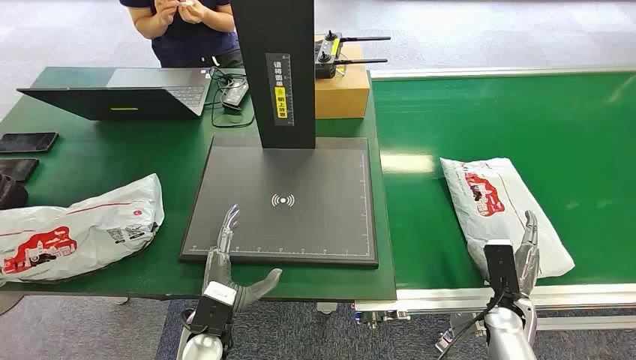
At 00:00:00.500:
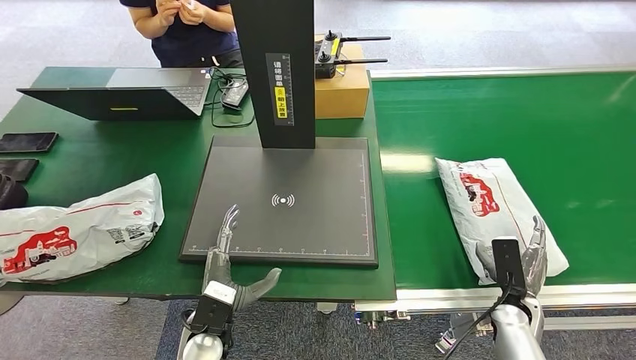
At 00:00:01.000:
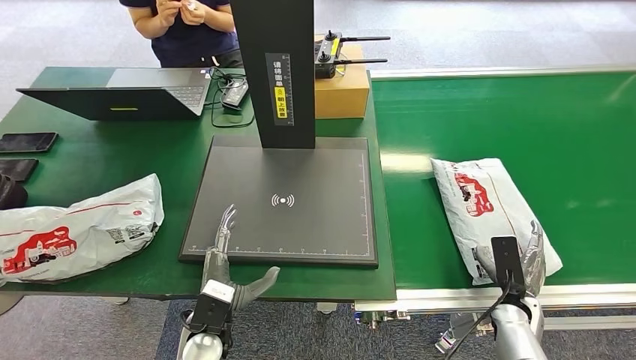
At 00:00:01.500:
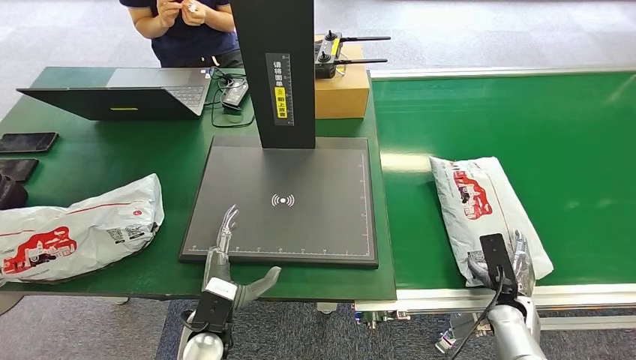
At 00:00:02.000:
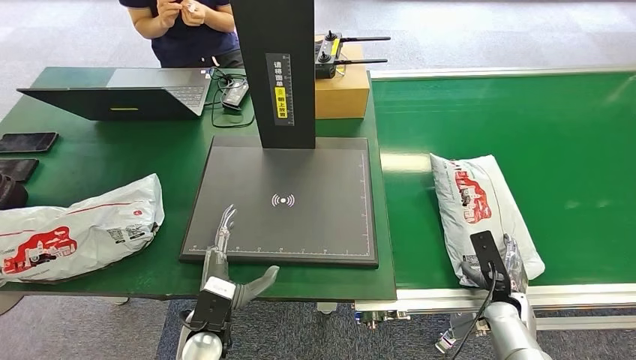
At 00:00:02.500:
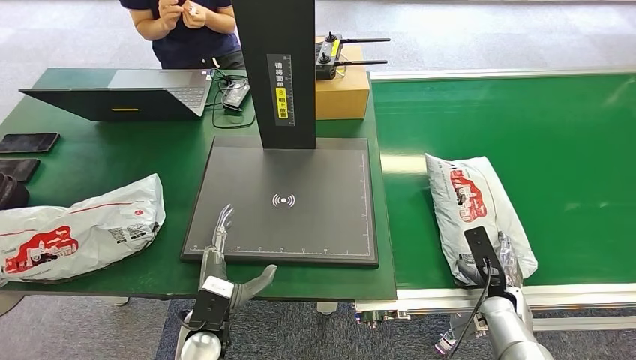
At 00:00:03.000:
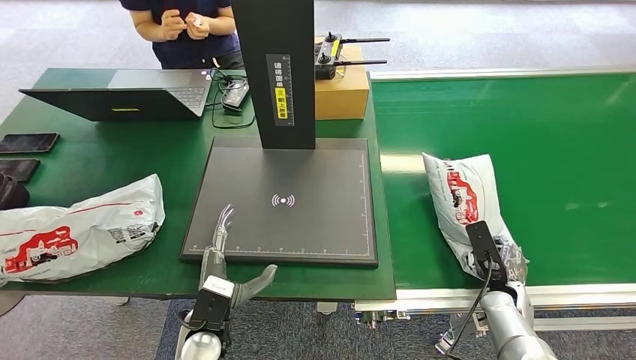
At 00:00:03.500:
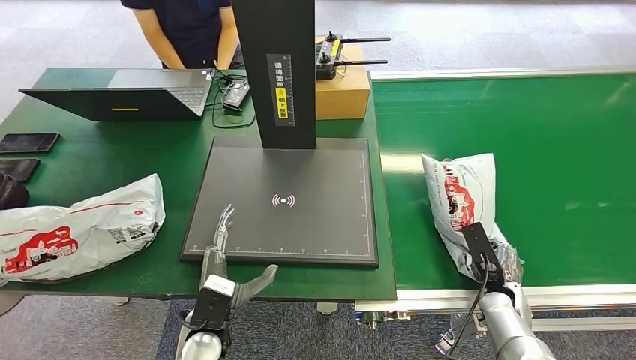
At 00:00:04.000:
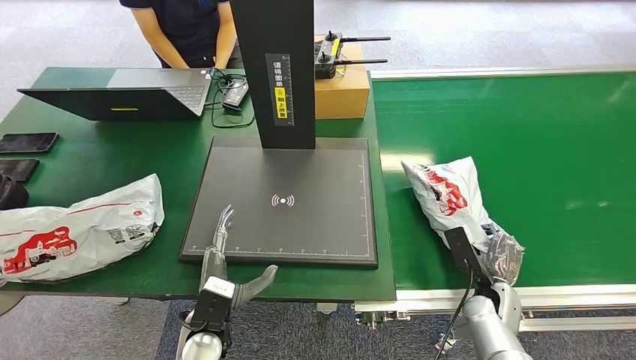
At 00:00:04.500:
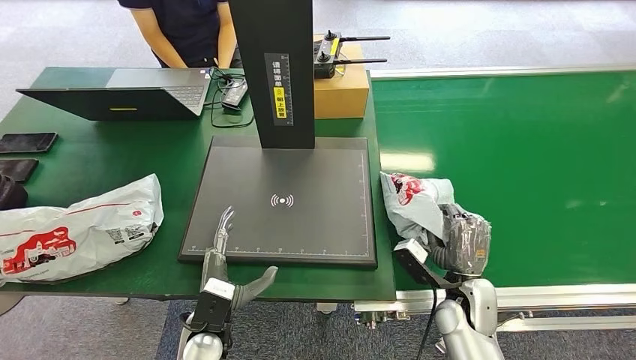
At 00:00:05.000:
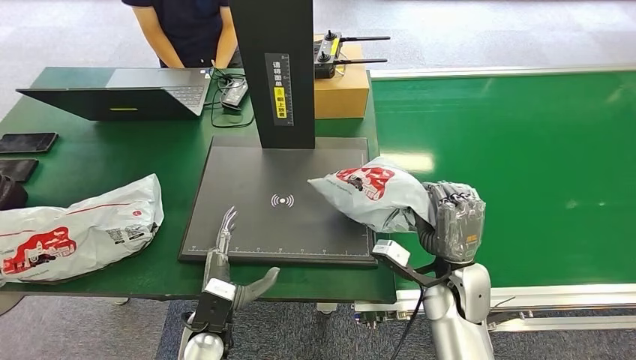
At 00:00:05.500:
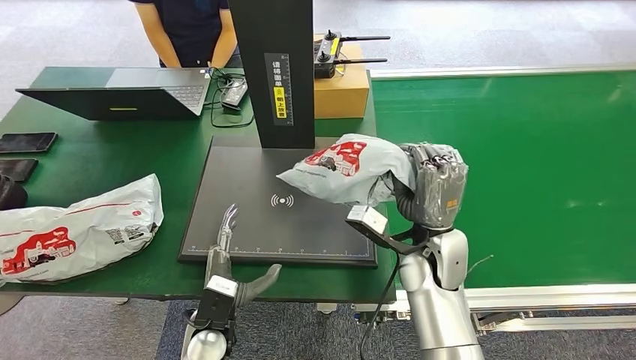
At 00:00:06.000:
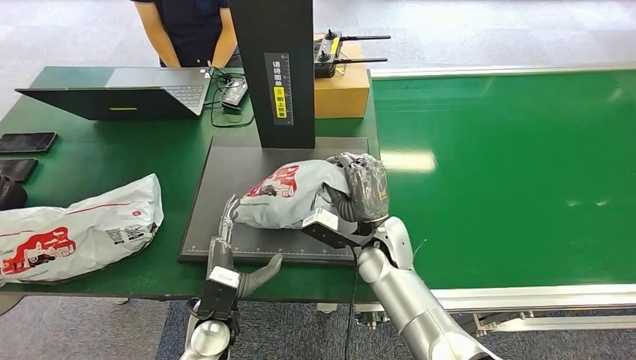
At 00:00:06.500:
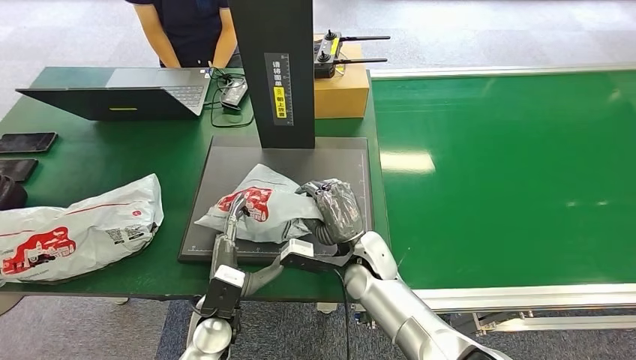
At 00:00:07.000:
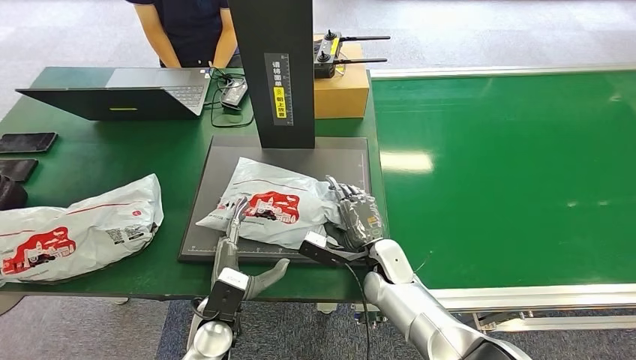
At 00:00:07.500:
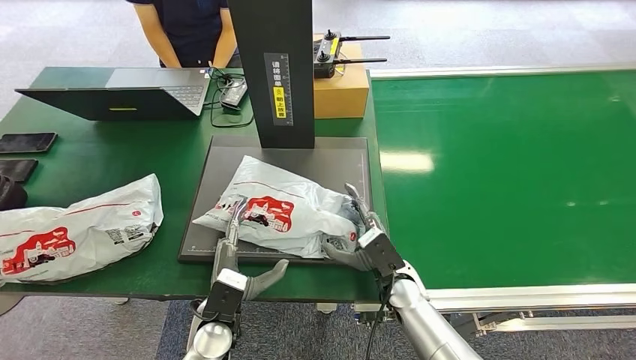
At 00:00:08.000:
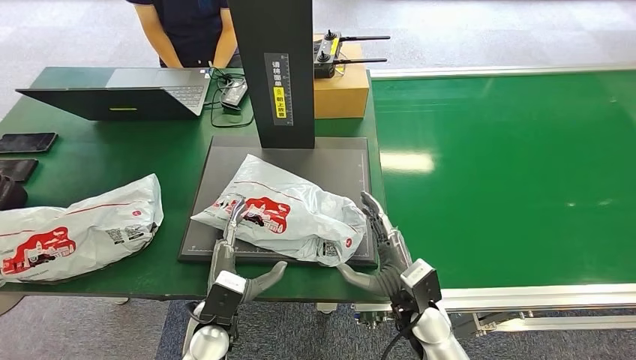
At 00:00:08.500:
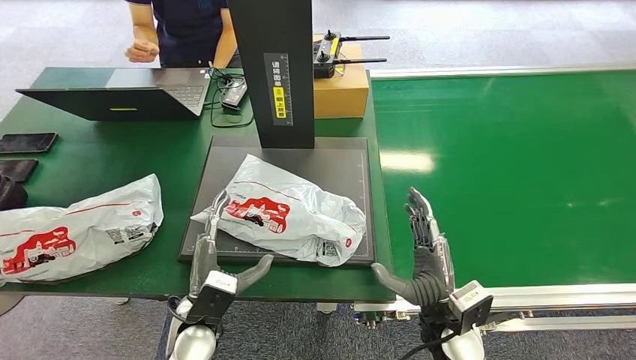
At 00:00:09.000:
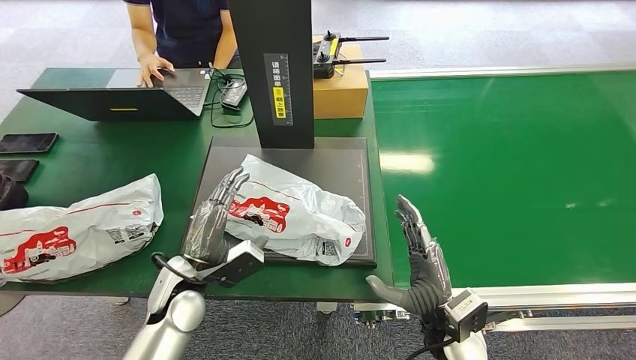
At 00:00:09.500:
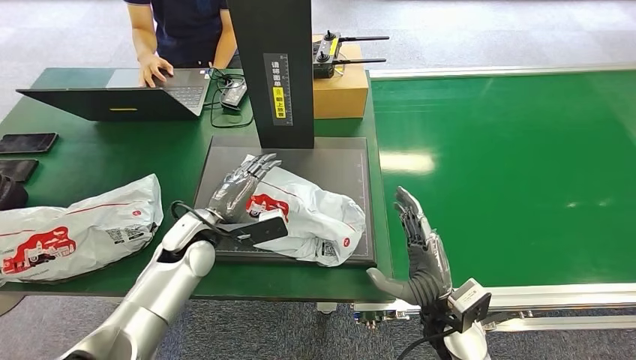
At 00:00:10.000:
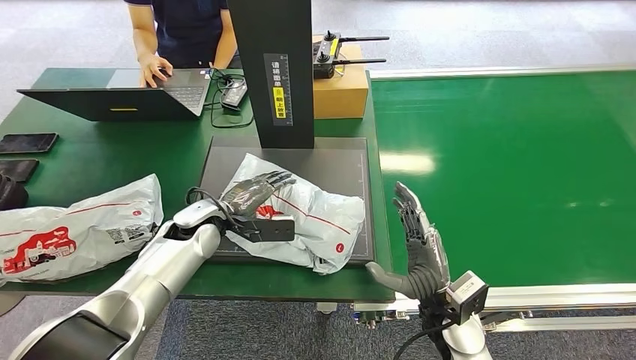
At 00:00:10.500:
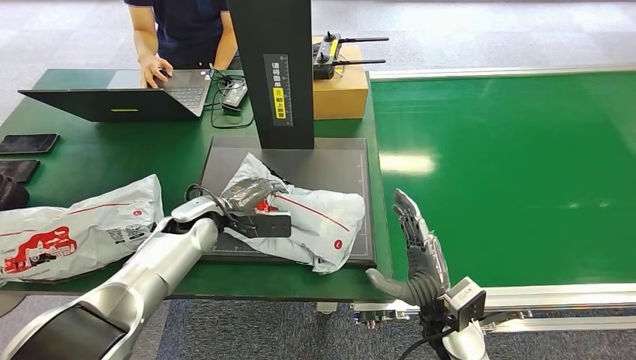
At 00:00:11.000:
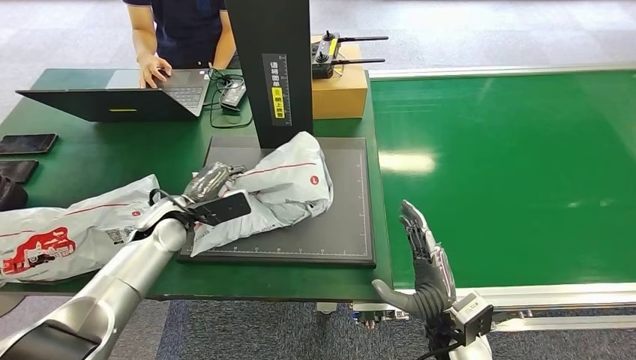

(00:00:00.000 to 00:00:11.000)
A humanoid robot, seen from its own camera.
Step, 00:00:00.000 - 00:00:04.500: Pick up the package from the conveyor belt.
Step, 00:00:05.000 - 00:00:08.000: Place the package onto the inbound machine.
00:00:02.000 - 00:00:03.500: There are only small adjustments of the hands.
00:00:05.500 - 00:00:07.500: The right hand is displaced downward by some 15 cm.
00:00:07.500 - 00:00:09.000: The left hand heads forward, upward and to the left, covering some 10 cm; the right hand heads backward and to the right, covering some 10 cm.
00:00:09.000 - 00:00:11.000: The left hand shifts approximately 15 cm forward and to the left.

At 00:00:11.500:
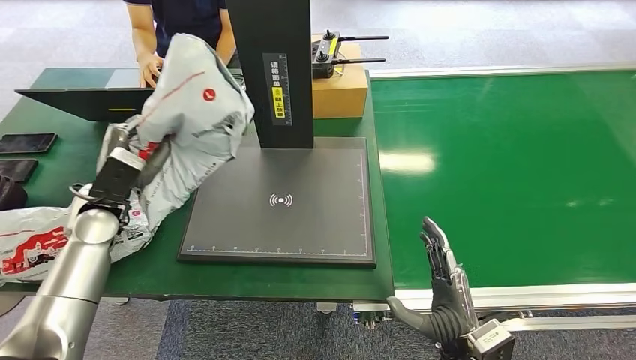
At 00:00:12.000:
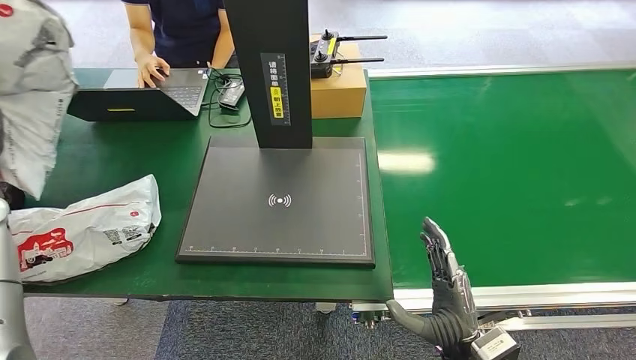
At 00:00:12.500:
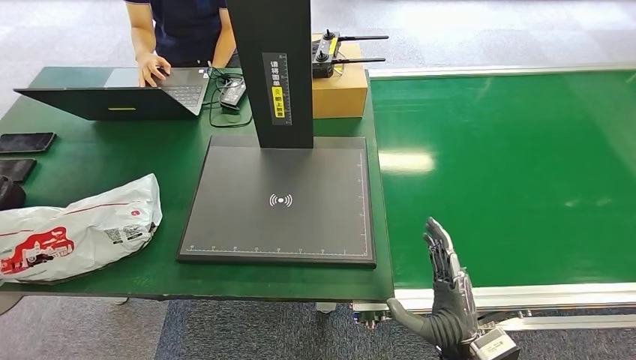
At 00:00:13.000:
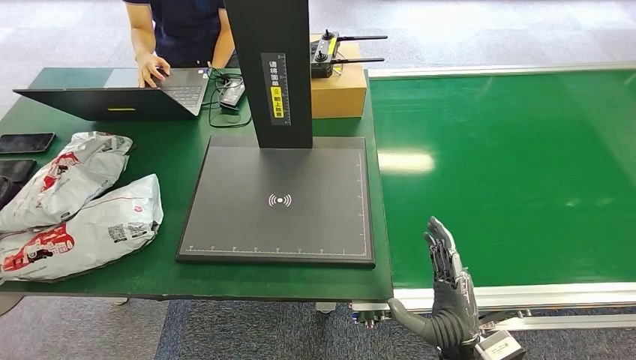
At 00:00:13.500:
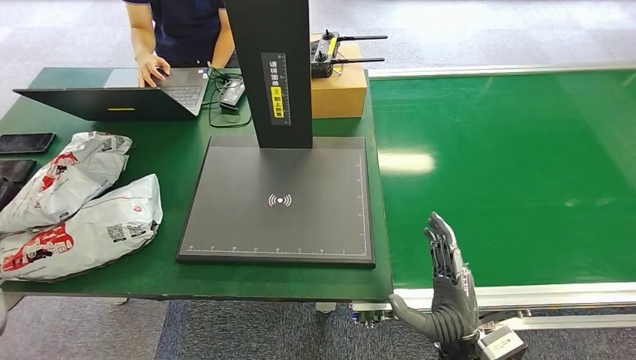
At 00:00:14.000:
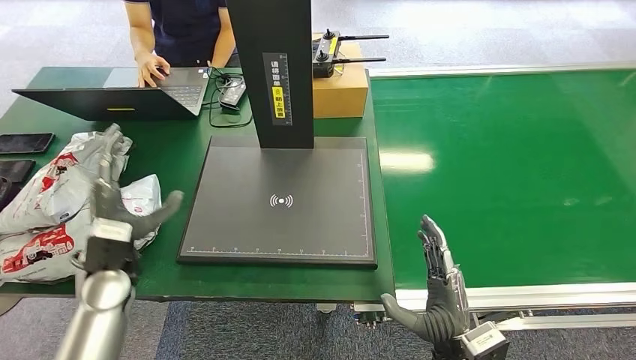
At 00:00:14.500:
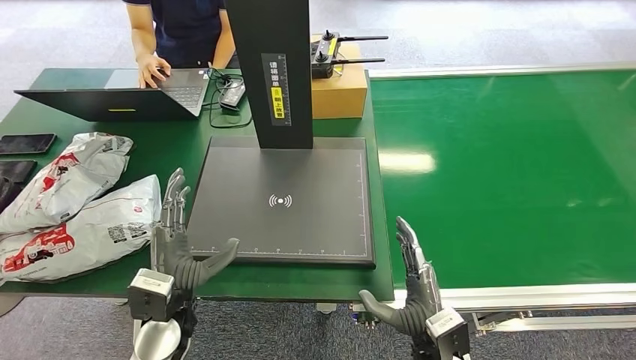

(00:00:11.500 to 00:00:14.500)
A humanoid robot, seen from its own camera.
Step, 00:00:11.500 - 00:00:14.500: Place the package into the parcel locker.
00:00:11.500 - 00:00:13.000: The left hand heads to the left and upward, covering approximately 25 cm.
00:00:13.000 - 00:00:14.500: The left hand shifts approximately 40 cm to the right, downward and backward.
